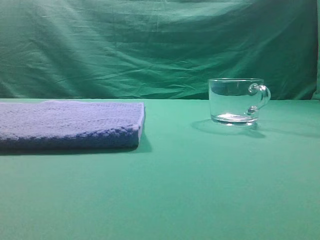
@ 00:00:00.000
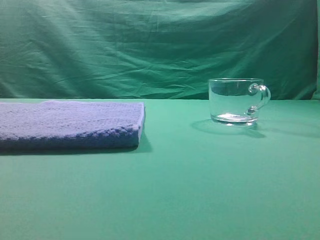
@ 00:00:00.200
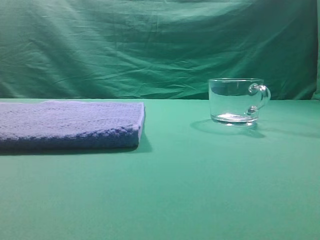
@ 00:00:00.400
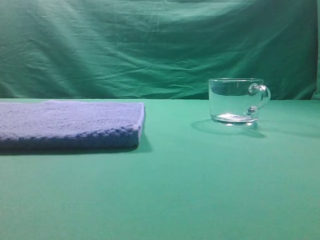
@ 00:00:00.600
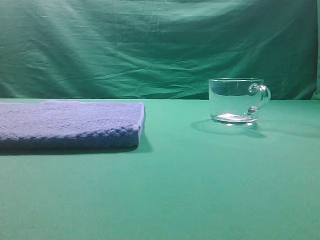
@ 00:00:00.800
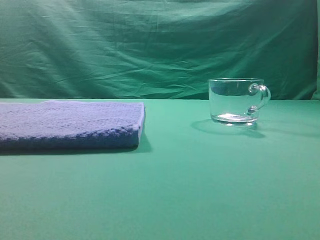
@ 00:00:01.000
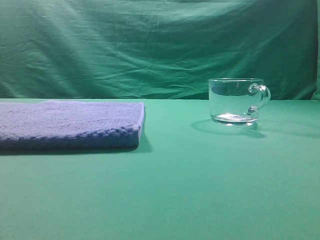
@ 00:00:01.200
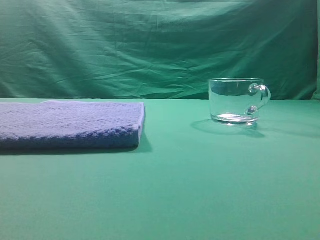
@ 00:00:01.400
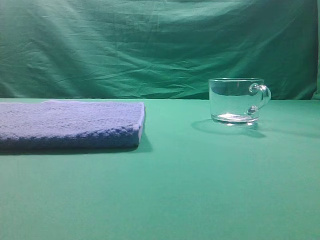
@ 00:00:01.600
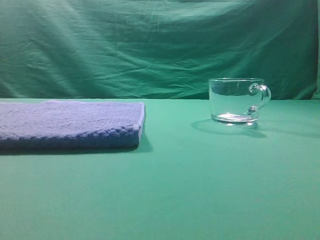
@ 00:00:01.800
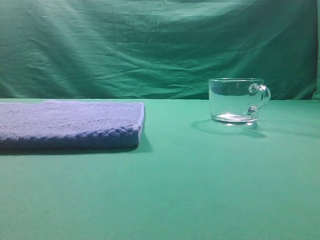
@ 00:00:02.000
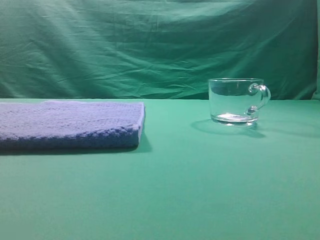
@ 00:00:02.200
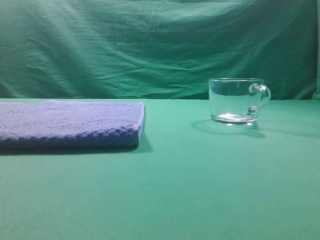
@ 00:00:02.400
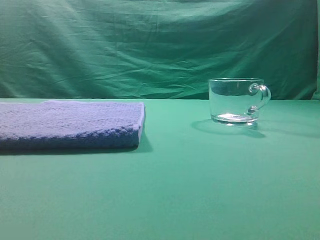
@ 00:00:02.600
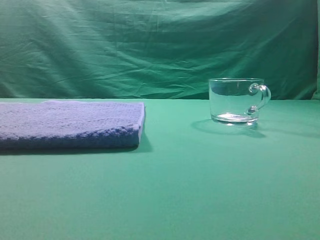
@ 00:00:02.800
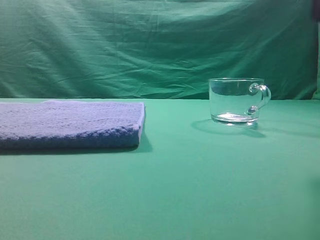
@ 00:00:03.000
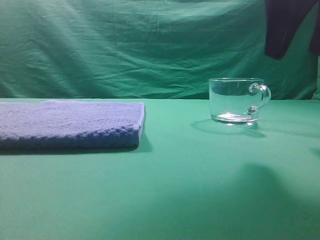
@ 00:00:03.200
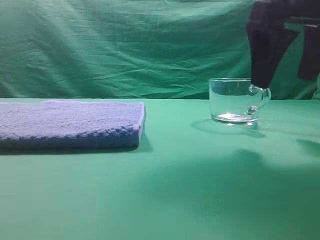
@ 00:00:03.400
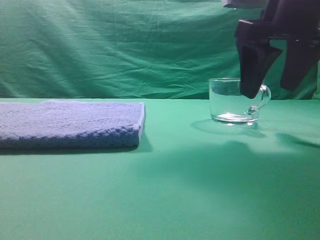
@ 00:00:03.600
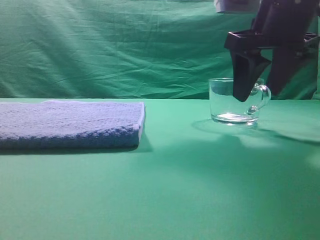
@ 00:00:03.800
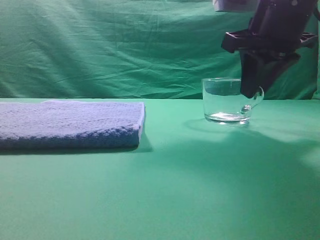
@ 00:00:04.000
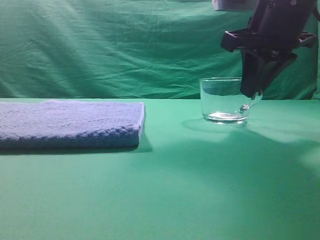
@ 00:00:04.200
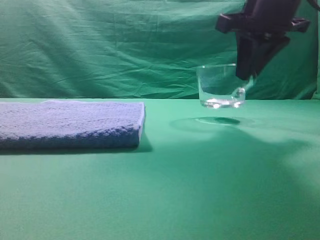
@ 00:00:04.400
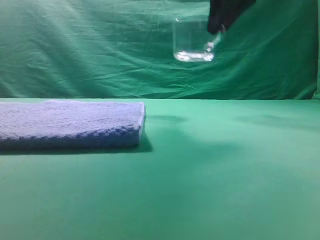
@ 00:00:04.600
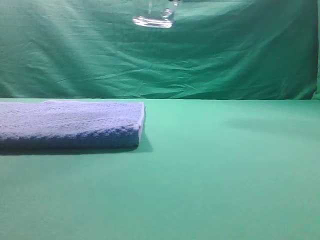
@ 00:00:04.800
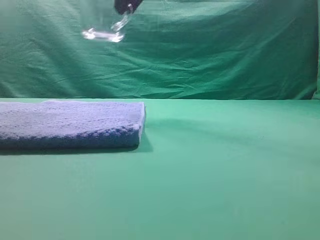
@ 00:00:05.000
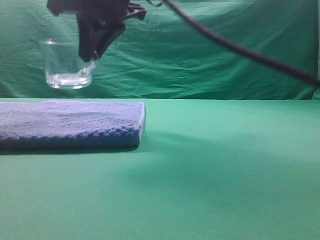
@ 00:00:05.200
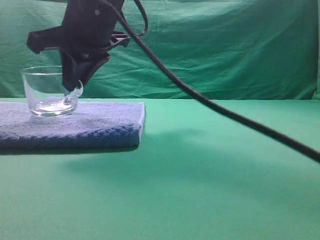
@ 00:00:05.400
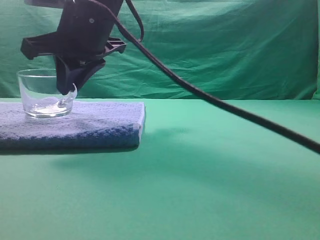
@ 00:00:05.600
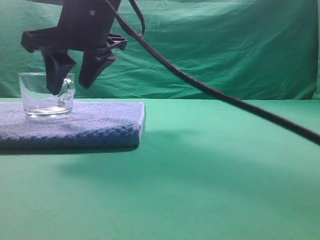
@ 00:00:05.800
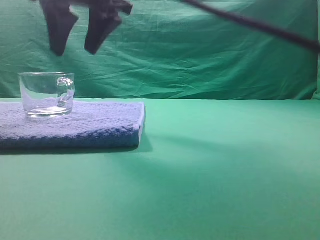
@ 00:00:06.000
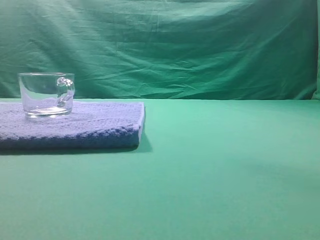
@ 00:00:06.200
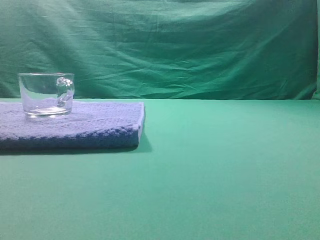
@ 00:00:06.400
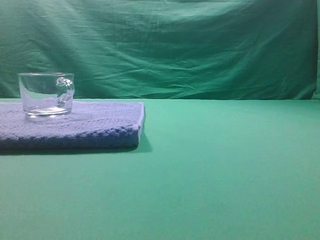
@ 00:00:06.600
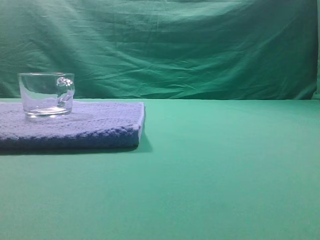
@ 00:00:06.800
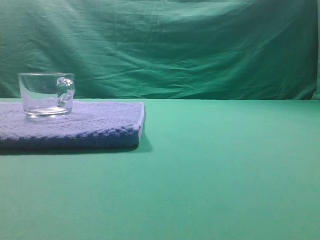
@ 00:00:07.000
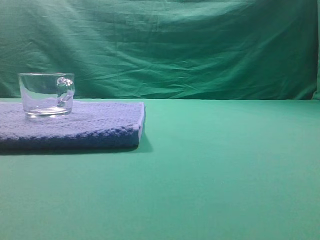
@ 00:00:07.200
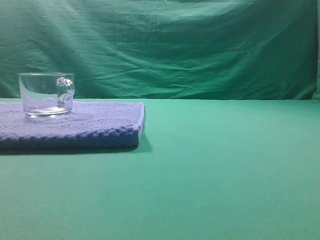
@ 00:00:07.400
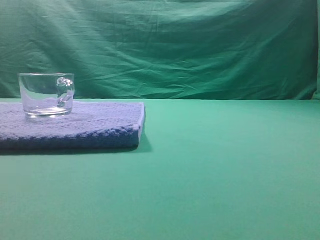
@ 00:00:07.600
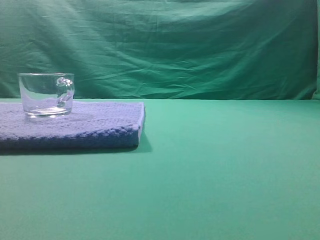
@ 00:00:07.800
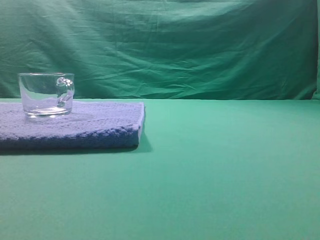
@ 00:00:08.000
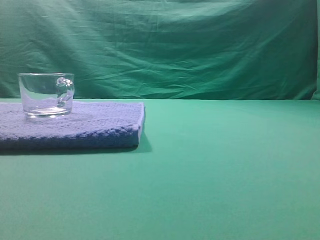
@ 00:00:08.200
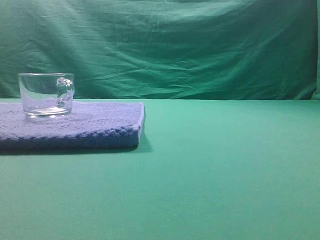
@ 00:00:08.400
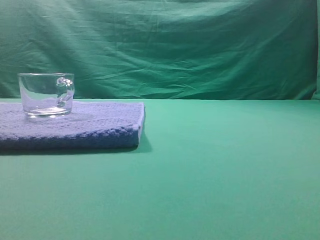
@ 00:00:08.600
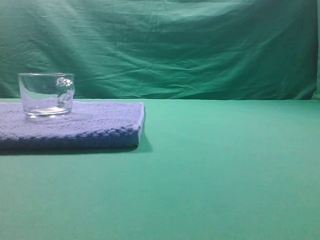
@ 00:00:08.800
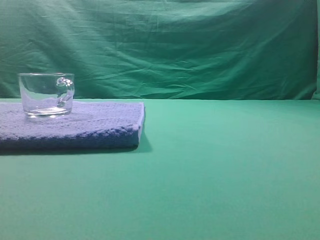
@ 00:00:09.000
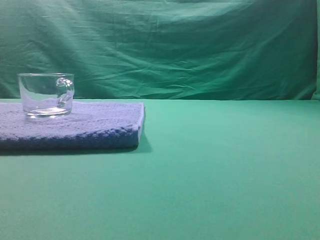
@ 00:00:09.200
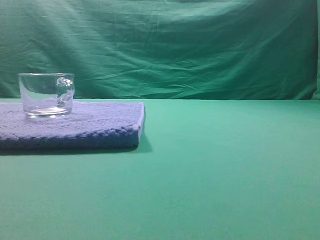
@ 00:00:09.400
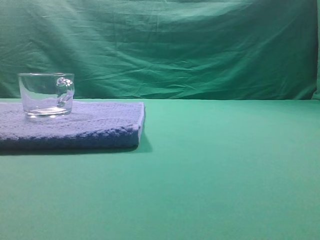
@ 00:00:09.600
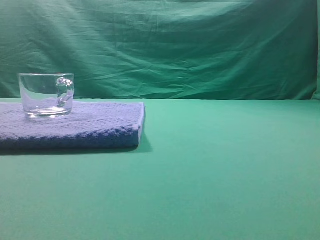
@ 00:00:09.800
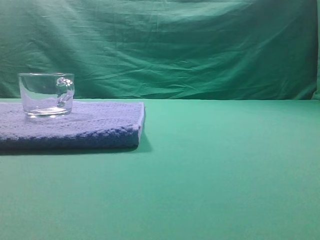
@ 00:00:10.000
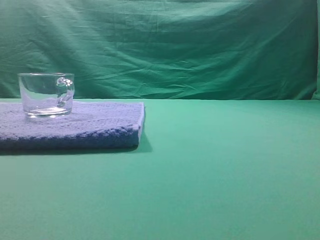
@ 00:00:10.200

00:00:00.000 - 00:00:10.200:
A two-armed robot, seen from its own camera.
Task of the whole recording: grasp the transparent glass cup and place it within the blue towel.
Step, 00:00:00.000 - 00:00:04.200: Grasp the transparent glass cup.
Step, 00:00:04.600 - 00:00:05.800: Place the glass cup on the blue zone.
